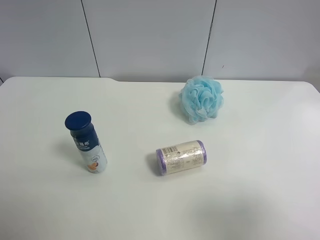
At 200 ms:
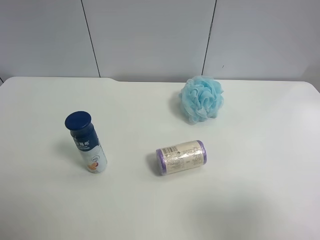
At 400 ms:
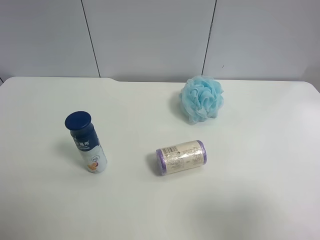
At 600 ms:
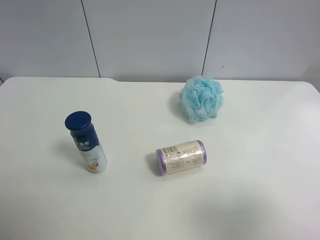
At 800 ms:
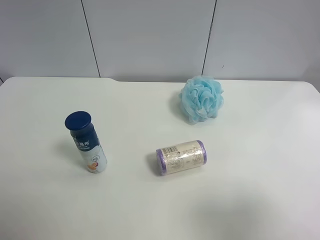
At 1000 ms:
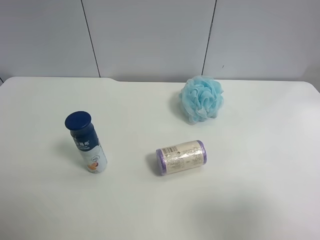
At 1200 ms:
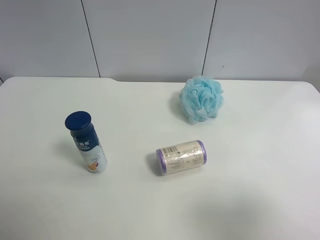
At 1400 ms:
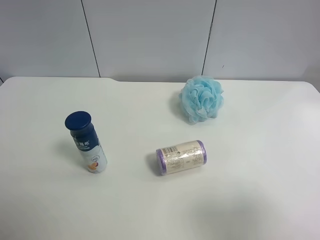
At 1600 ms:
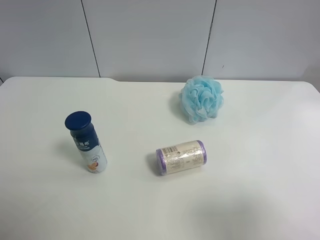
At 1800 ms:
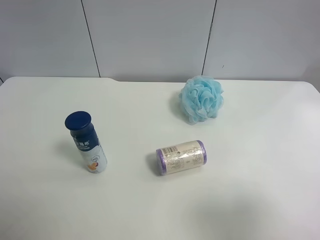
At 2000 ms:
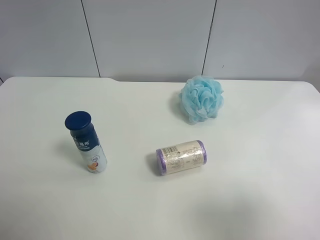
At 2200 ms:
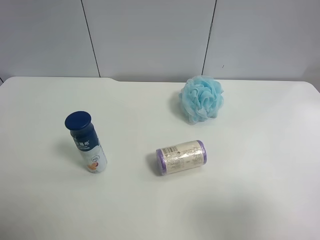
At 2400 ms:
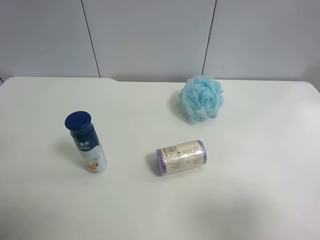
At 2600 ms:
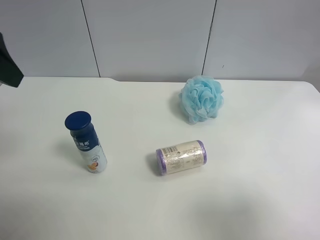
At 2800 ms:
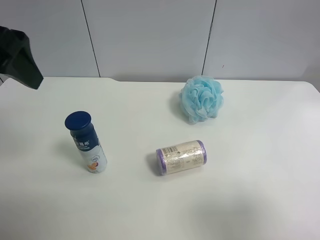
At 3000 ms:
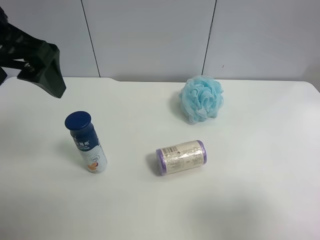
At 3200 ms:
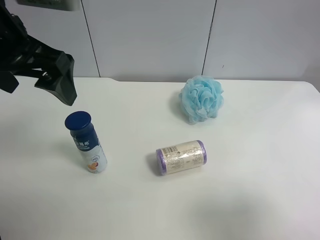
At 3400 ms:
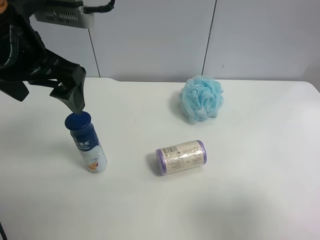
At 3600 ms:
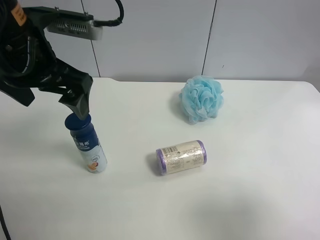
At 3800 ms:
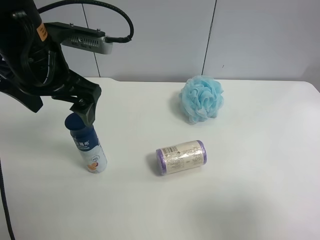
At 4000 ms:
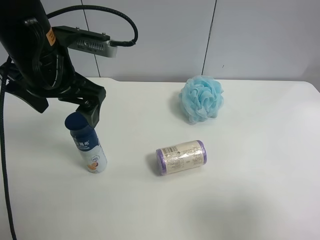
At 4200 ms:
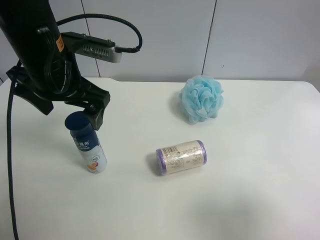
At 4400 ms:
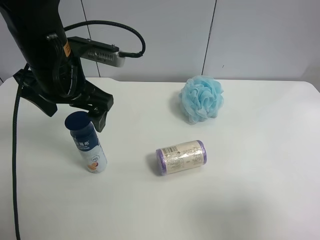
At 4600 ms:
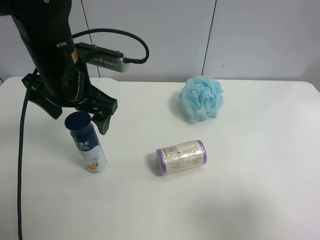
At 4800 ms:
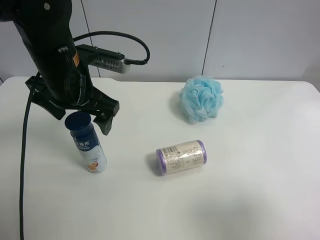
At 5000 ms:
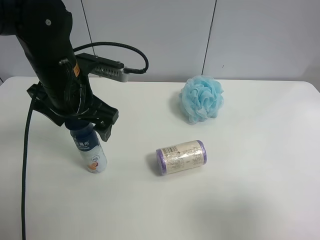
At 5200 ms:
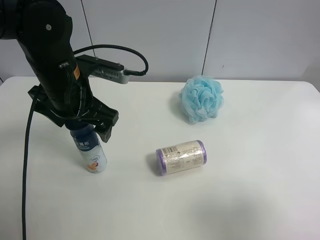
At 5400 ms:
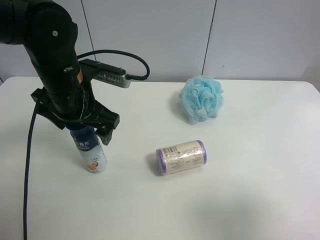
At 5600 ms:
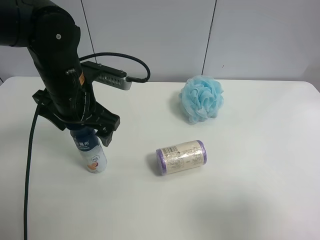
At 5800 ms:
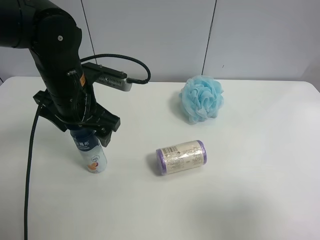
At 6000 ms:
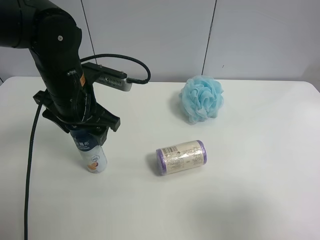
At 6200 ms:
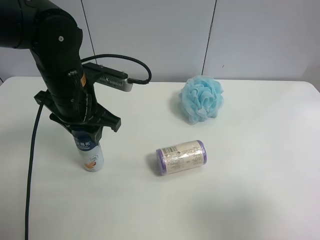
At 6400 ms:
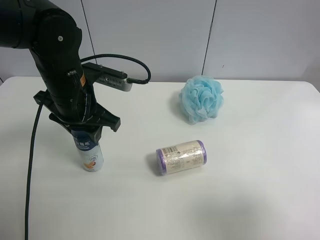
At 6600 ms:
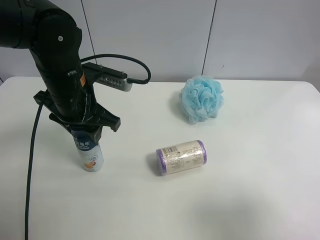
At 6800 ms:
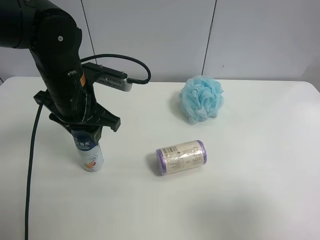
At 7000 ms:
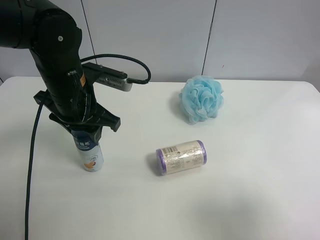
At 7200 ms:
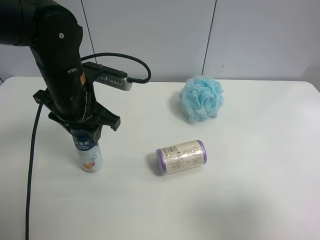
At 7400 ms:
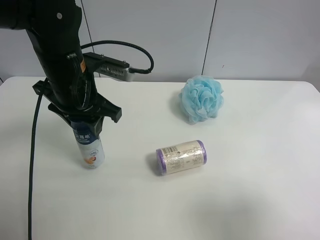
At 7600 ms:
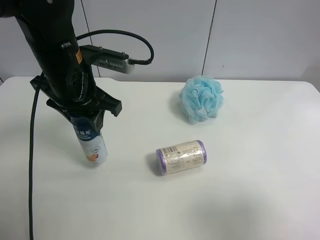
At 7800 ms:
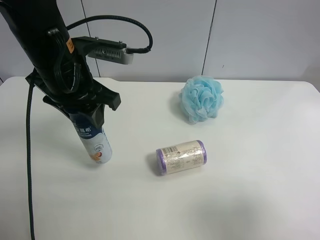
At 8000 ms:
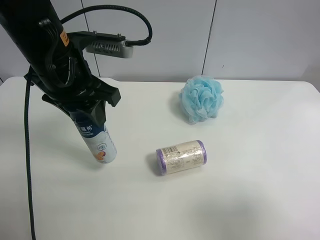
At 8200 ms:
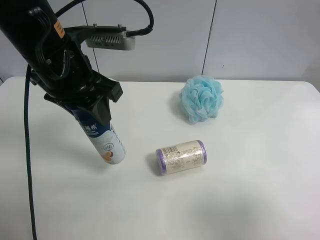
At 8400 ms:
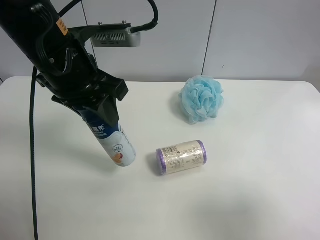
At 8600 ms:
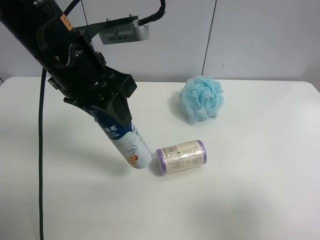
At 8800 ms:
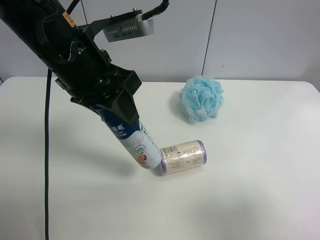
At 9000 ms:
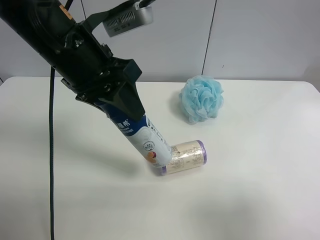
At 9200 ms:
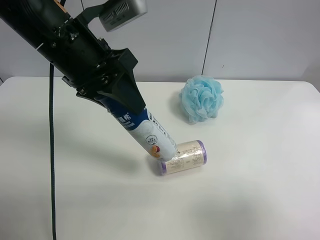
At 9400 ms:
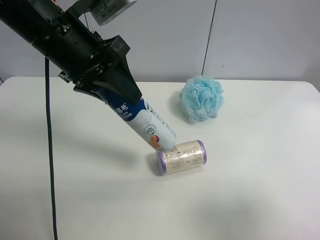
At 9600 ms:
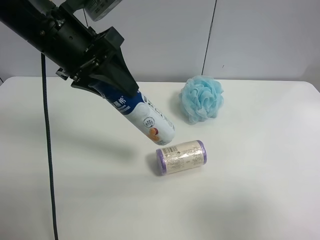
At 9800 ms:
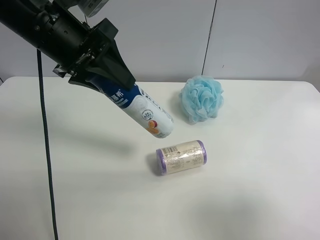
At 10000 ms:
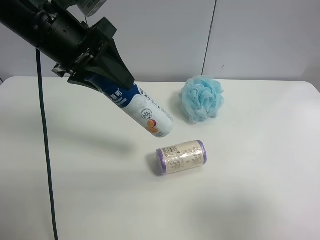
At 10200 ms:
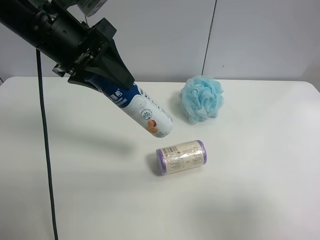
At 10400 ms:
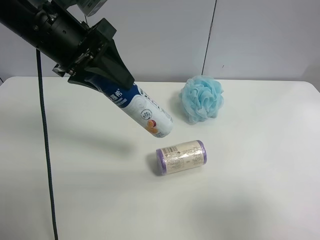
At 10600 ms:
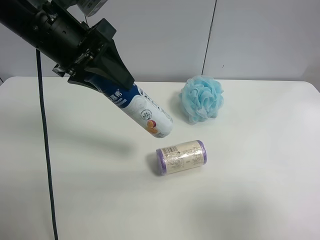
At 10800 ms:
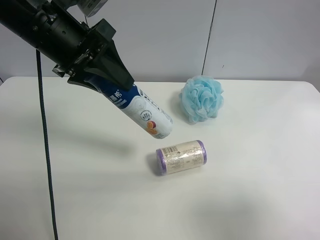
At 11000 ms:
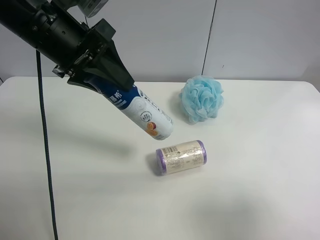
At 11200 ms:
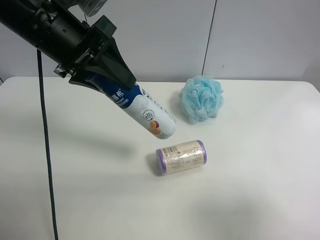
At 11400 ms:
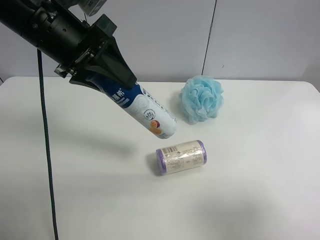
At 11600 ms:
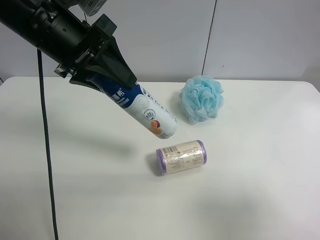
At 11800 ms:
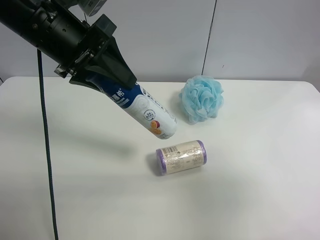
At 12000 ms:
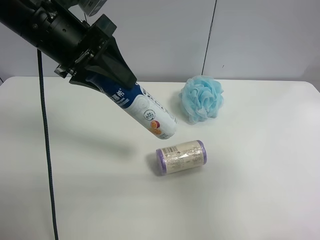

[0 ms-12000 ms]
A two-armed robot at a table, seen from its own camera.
Task of the whole recording: use the left gripper to pick up the item and transfer it from the left gripper to the right gripper.
1600 ms to 3000 ms: The left gripper heads forward and to the right, covering roughly 20 cm.
3000 ms to 4400 ms: The left gripper is displaced downward and forward by roughly 10 cm.
4400 ms to 6000 ms: The left gripper closes.
6000 ms to 7600 ms: The left gripper closes its fingers.
7600 ms to 9000 ms: The left gripper shifts by some 5 cm.
9000 ms to 10400 ms: The left gripper changes place by roughly 5 cm.
10400 ms to 12000 ms: The right gripper travels forward by roughly 10 cm.

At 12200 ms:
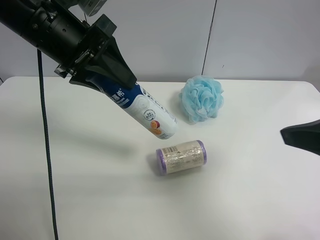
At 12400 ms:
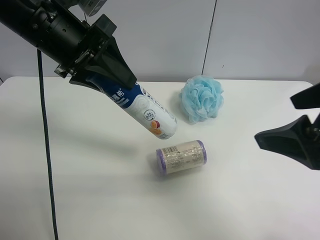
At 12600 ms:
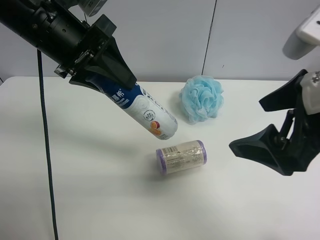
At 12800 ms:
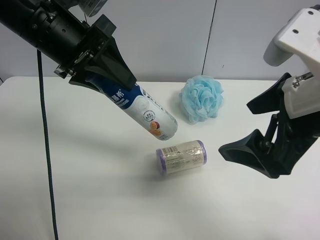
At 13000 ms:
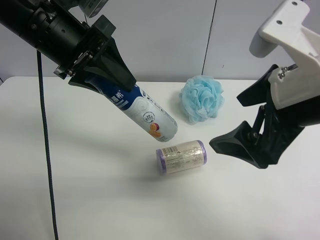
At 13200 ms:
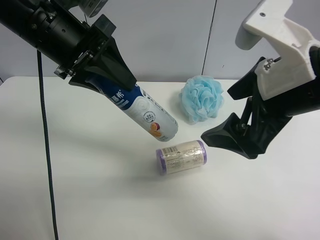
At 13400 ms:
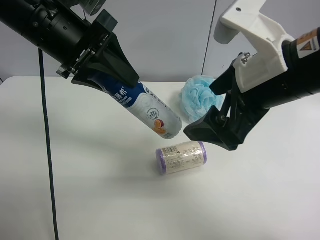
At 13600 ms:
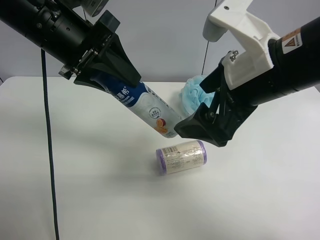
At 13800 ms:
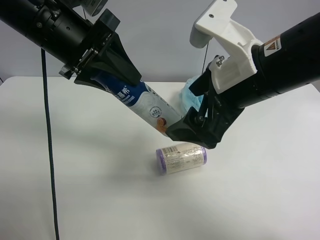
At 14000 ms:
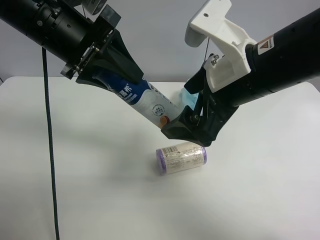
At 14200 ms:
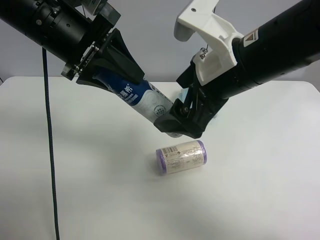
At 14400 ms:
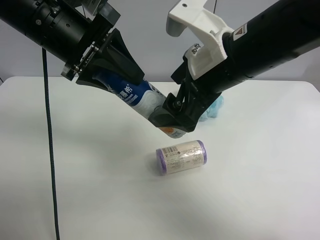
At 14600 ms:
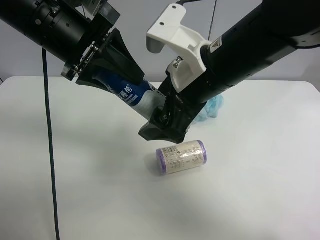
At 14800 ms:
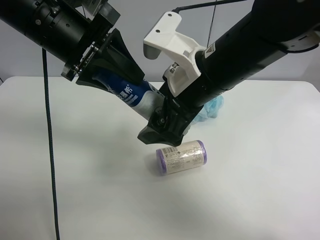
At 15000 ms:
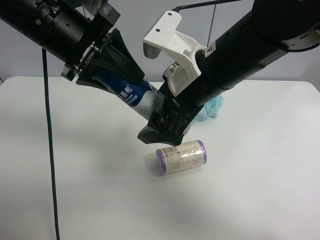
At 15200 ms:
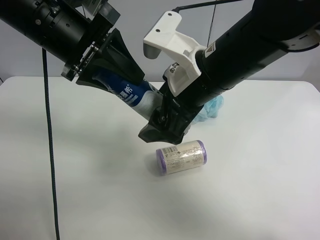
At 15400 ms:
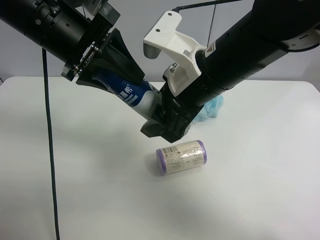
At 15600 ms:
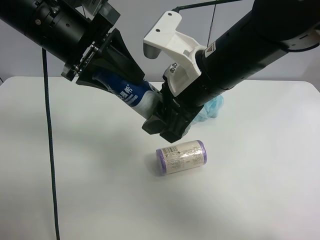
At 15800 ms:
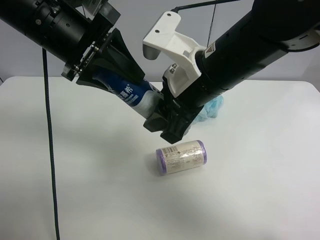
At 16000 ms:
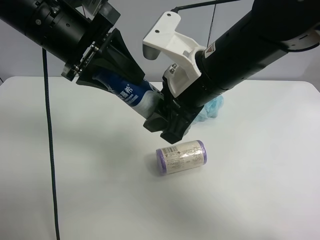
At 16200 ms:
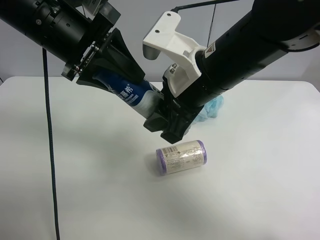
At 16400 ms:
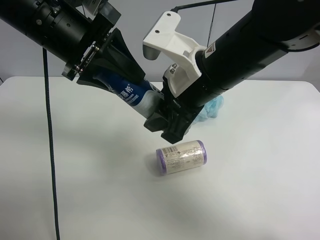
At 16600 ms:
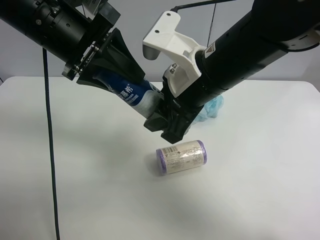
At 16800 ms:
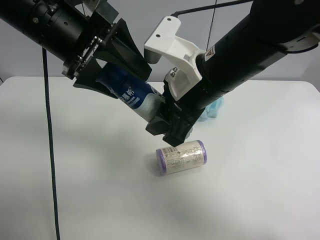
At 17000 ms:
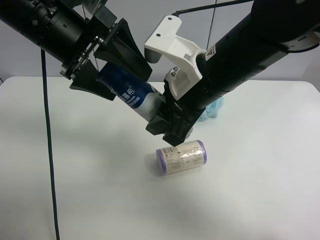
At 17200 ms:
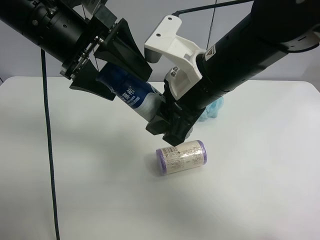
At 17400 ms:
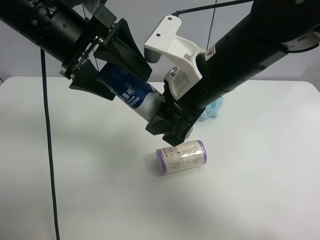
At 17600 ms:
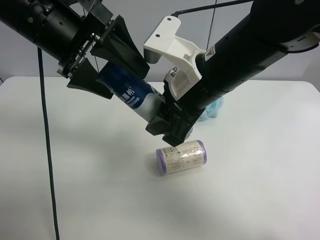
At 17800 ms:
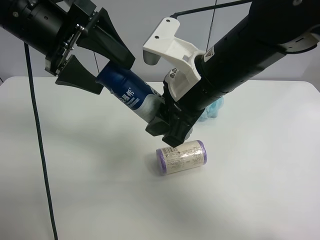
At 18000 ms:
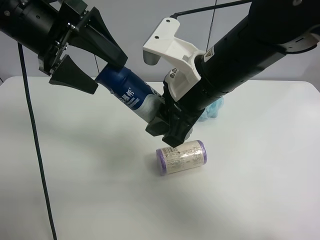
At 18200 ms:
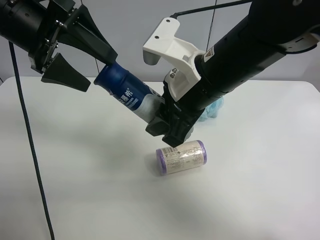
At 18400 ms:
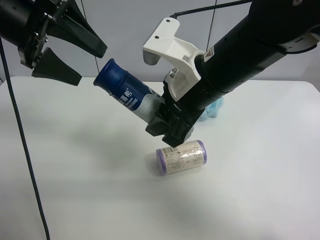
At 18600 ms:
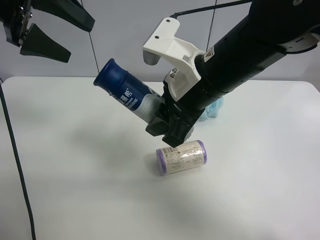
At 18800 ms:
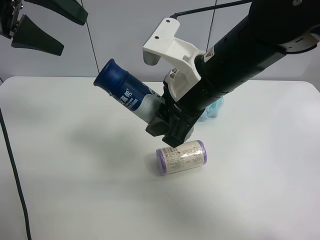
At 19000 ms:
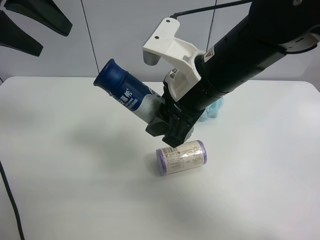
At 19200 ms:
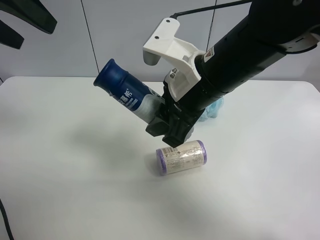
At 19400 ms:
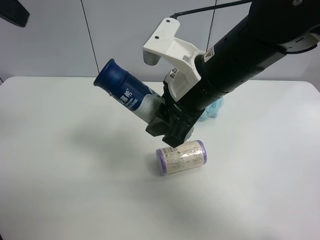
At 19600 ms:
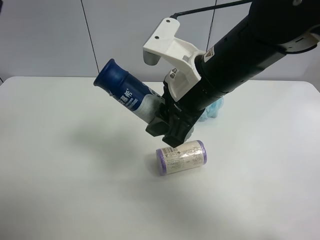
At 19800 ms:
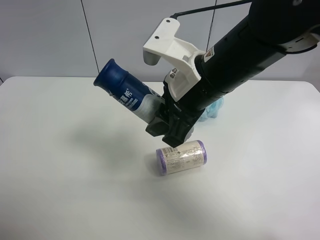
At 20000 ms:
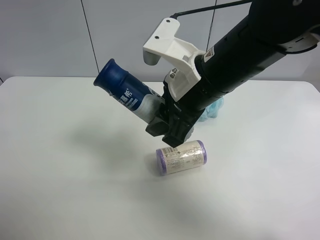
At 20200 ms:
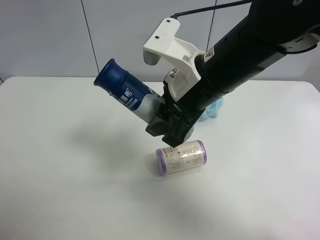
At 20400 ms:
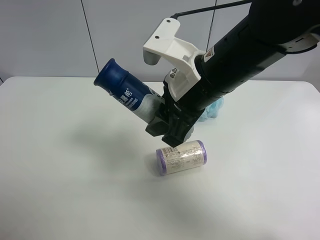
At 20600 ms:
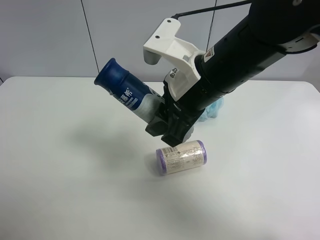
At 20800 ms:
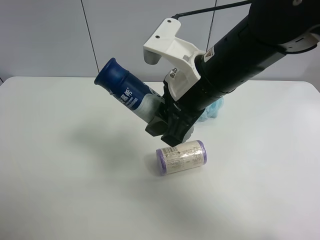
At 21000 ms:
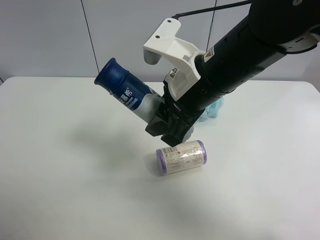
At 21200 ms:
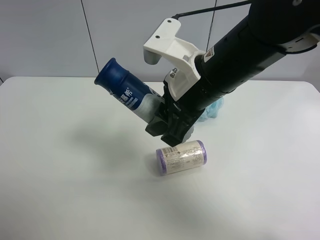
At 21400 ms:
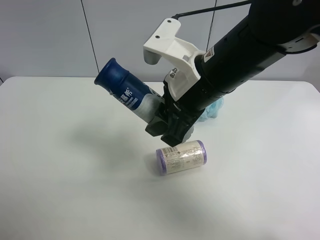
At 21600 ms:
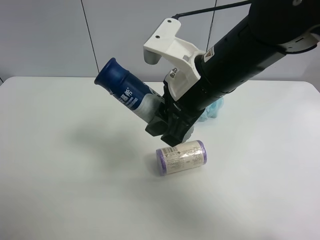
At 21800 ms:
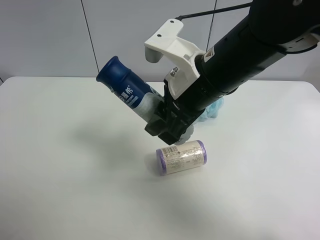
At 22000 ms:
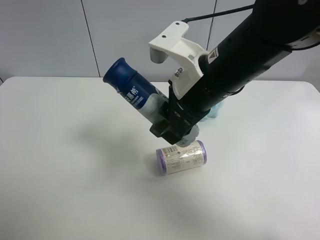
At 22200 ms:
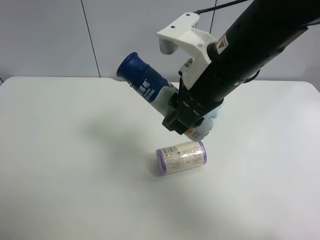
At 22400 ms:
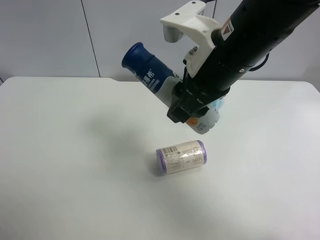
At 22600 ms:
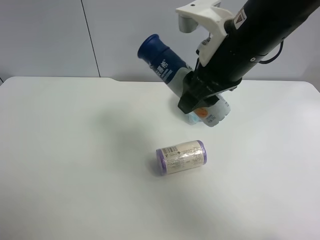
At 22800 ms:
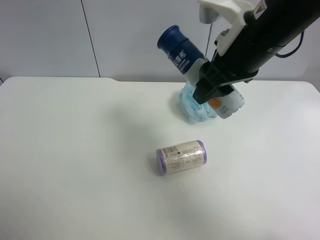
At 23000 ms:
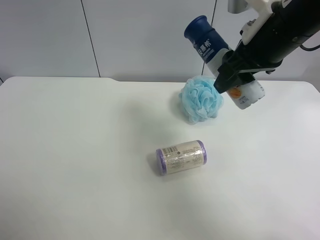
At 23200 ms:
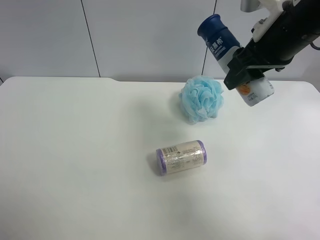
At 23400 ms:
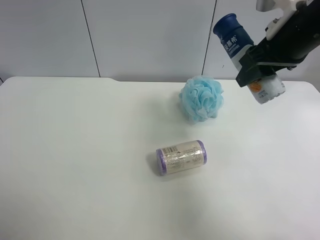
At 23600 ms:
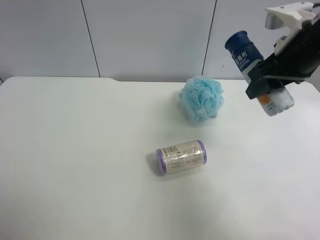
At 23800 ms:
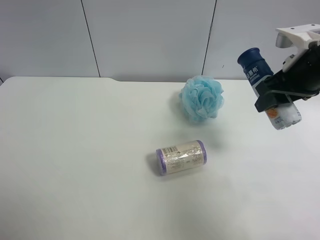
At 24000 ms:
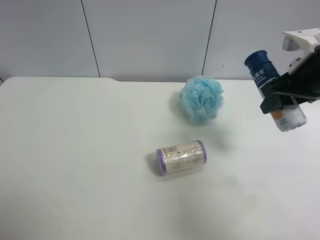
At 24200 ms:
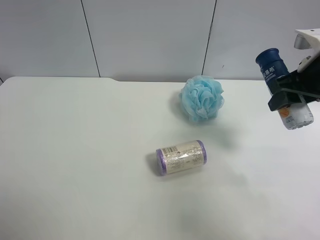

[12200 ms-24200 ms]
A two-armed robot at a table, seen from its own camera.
Task of the whole recording: use the left gripper to pick up the item and transfer it from the left gripper to the right gripper.
12200 ms to 13800 ms: The right gripper is displaced to the left and forward by roughly 15 cm.
13800 ms to 15200 ms: The right gripper changes place by roughly 5 cm.
15200 ms to 16600 ms: The right gripper closes.
16600 ms to 18200 ms: The left gripper heads to the left, covering some 5 cm, and opens its fingers.
18200 ms to 19800 ms: The left gripper is displaced backward, upward and to the left by roughly 20 cm.
19800 ms to 21200 ms: The left gripper shifts roughly 20 cm backward and downward.
21200 ms to 22600 ms: The right gripper changes place by roughly 5 cm.
22600 ms to 24200 ms: The right gripper goes some 15 cm to the right.
